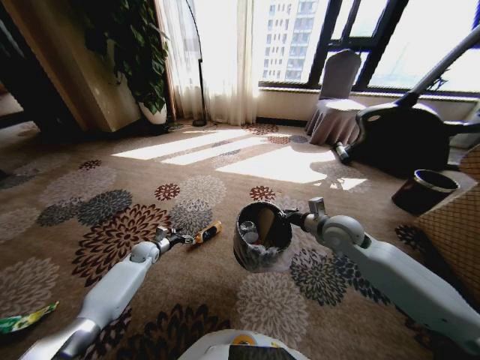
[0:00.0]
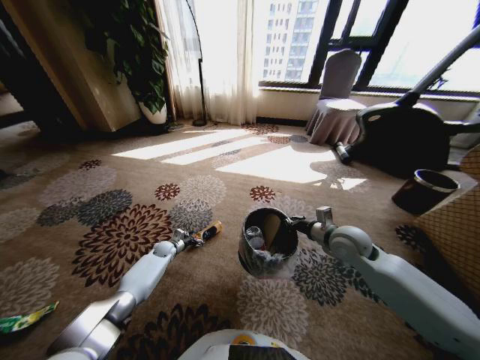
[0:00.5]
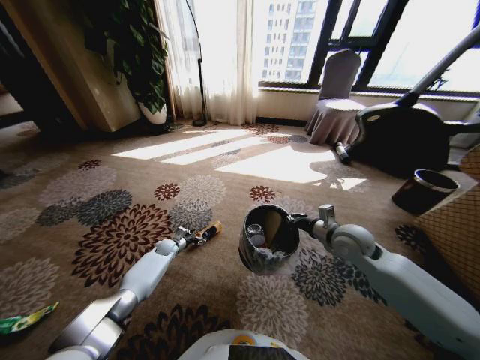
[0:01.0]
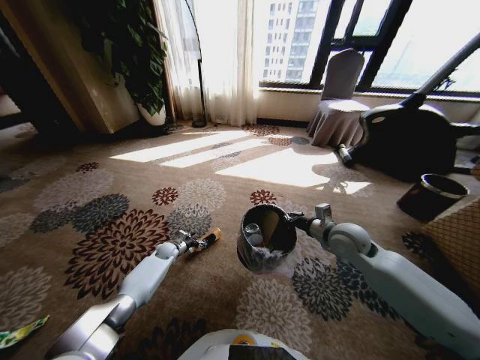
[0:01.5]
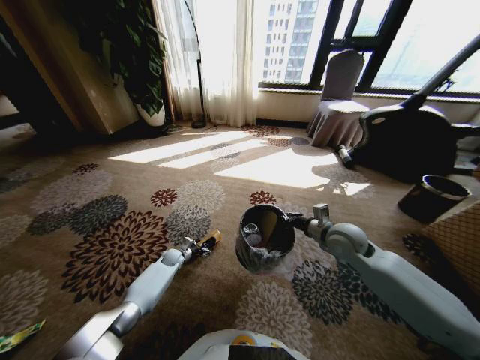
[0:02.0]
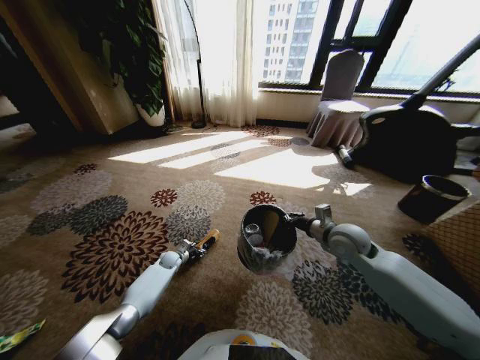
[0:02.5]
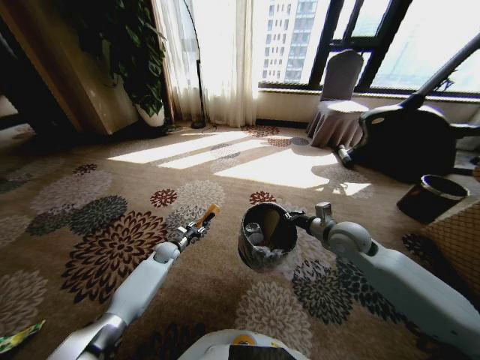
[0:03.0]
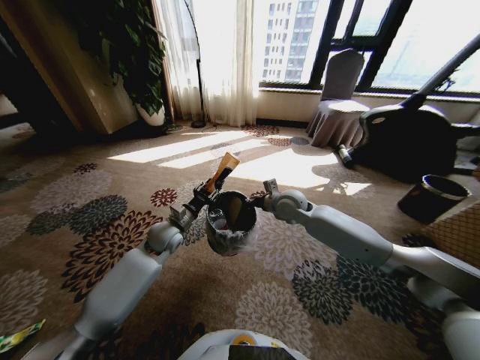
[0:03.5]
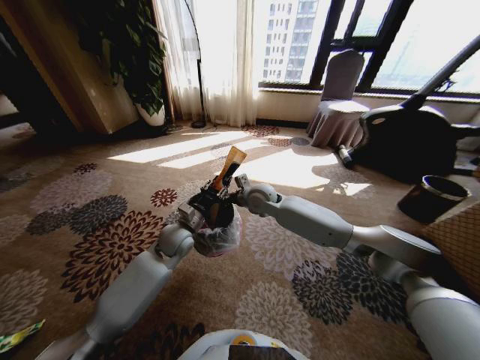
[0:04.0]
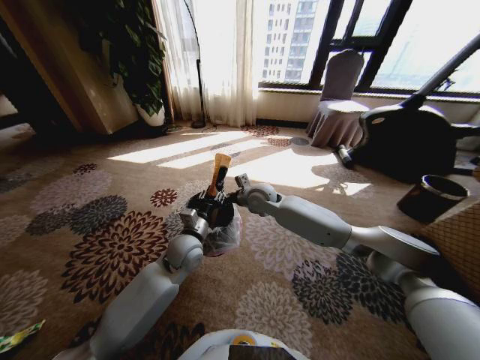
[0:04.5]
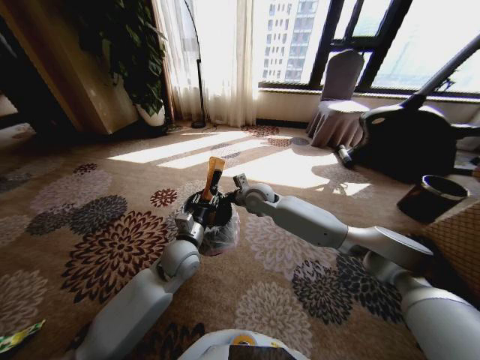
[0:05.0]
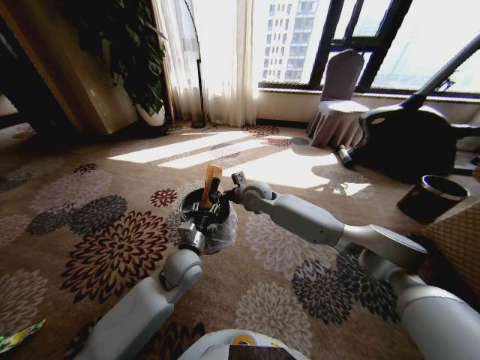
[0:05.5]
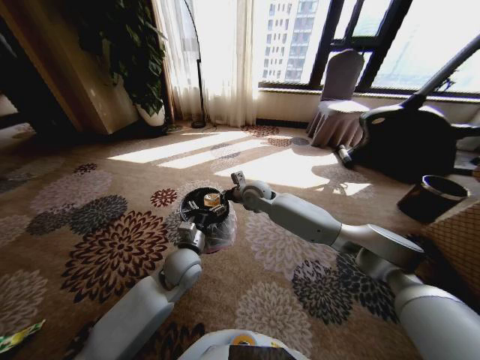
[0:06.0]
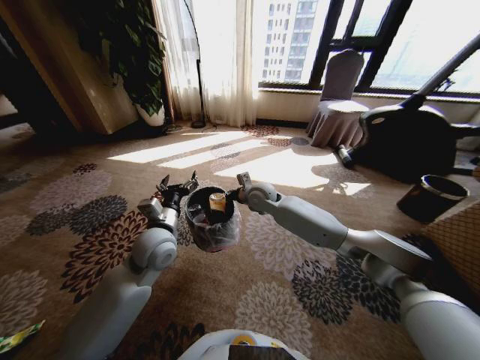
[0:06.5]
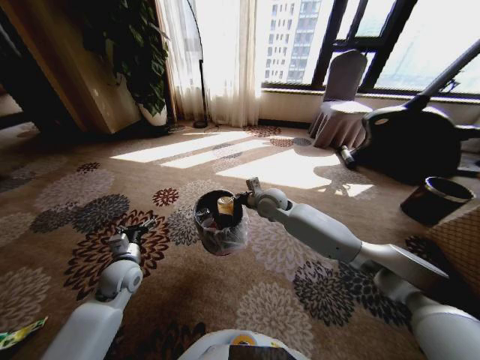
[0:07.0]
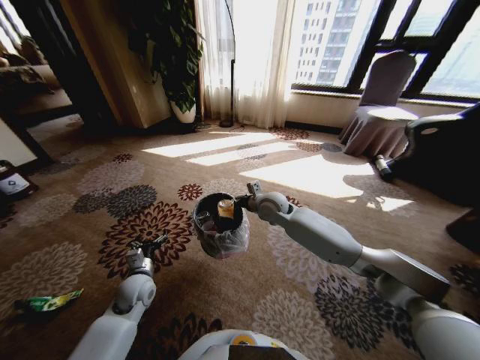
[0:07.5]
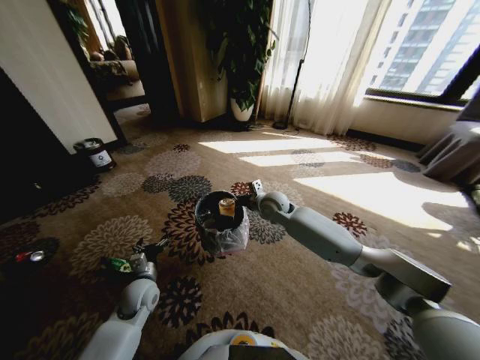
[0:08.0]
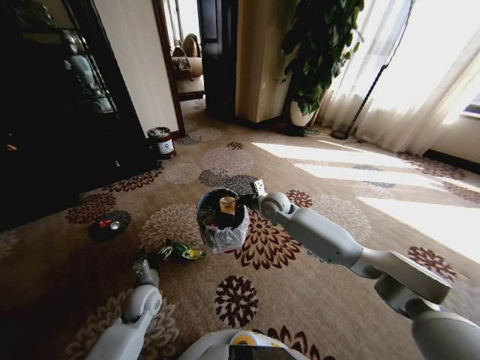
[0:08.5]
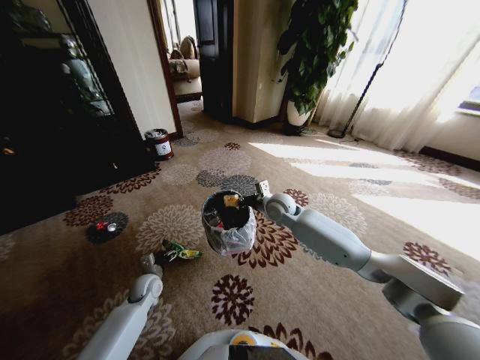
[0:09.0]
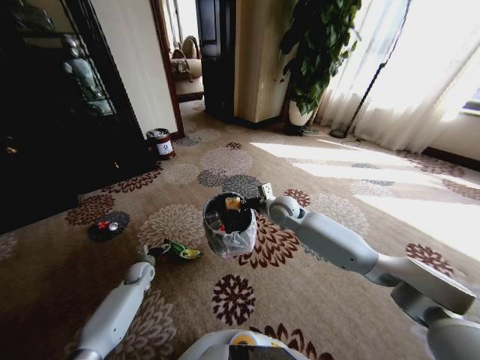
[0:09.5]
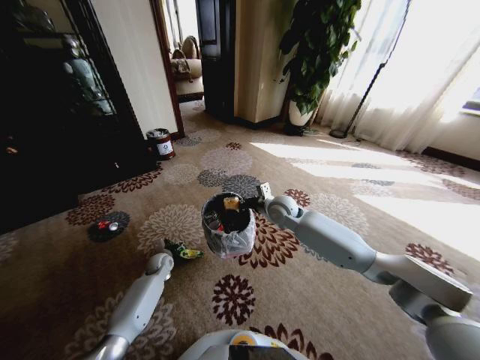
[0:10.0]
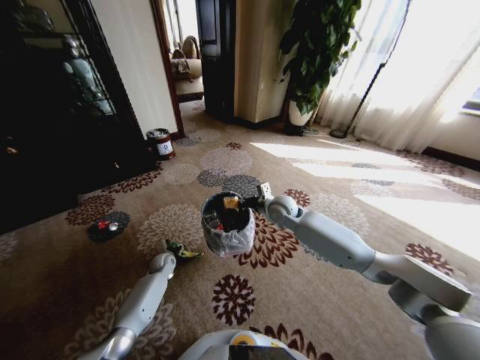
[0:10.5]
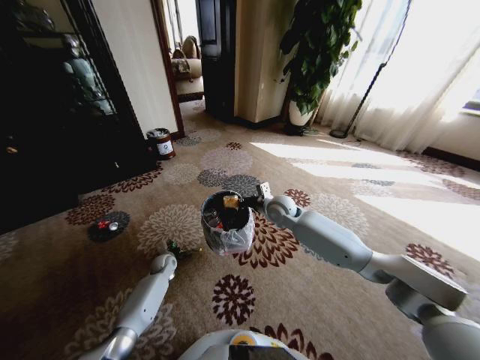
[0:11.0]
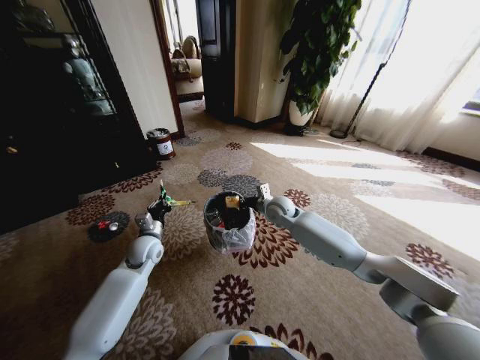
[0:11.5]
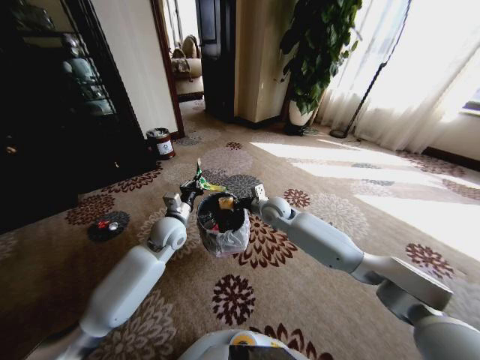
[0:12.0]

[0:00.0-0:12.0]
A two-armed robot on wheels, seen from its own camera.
Task of the whole recording: Pick up the trash from the ground and place it into the trash bin.
0:00.0 to 0:02.0: The left gripper travels downward and to the right by roughly 10 cm.
0:02.0 to 0:04.0: The right gripper shifts about 25 cm to the left and forward. Meanwhile the left gripper heads upward, covering approximately 25 cm, and closes.
0:04.0 to 0:06.0: The left gripper travels backward by some 5 cm, and opens its fingers.
0:06.0 to 0:08.0: The right gripper shifts about 5 cm to the right. Meanwhile the left gripper shifts roughly 15 cm to the left and downward.
0:08.0 to 0:10.0: The left gripper travels forward and downward by about 20 cm.
0:10.0 to 0:12.0: The left gripper moves upward and to the right, roughly 25 cm, and closes.

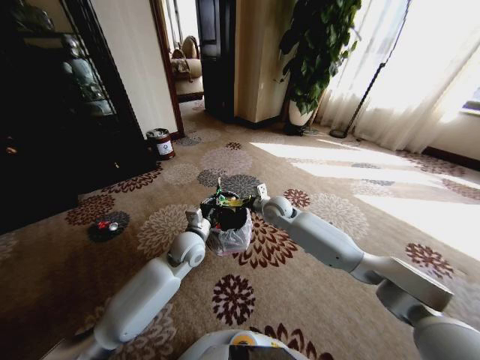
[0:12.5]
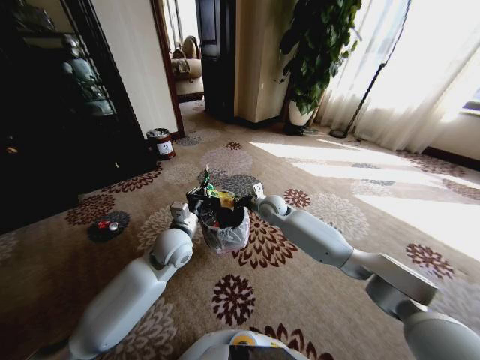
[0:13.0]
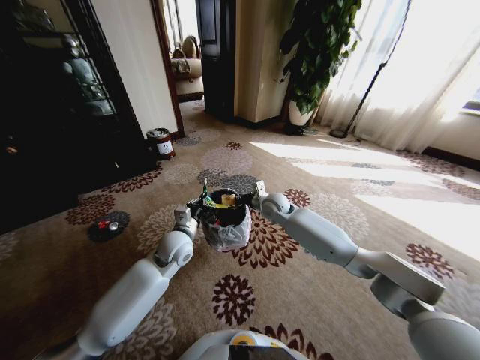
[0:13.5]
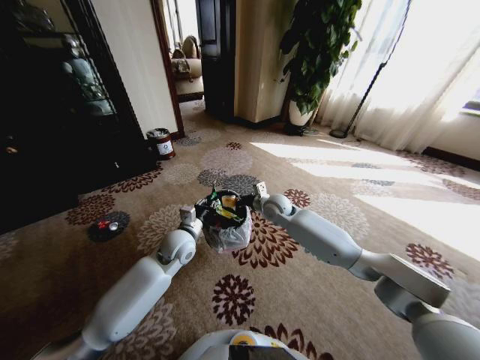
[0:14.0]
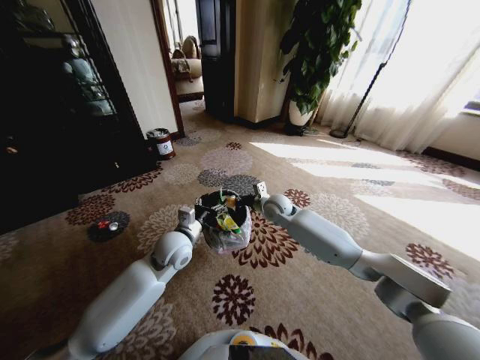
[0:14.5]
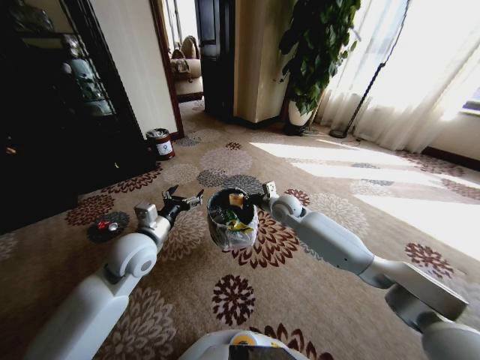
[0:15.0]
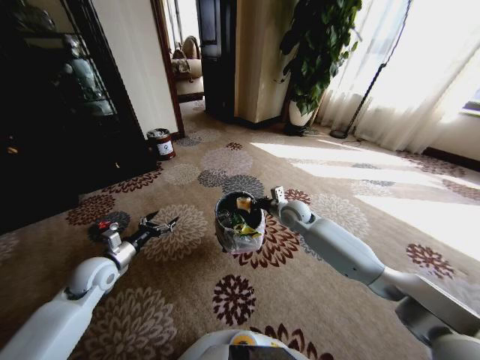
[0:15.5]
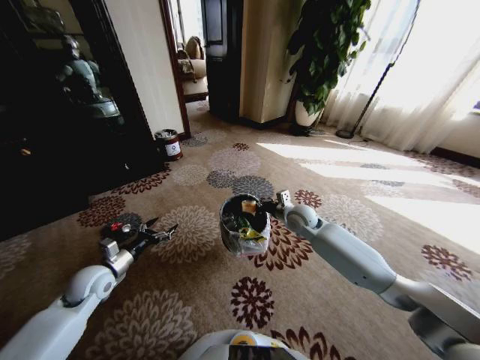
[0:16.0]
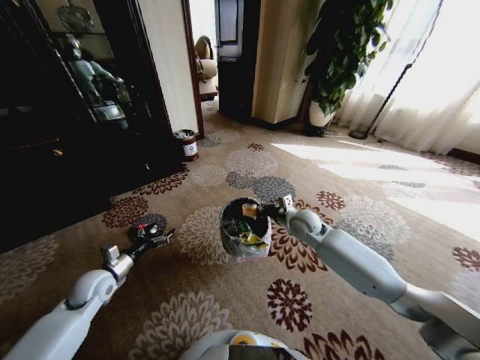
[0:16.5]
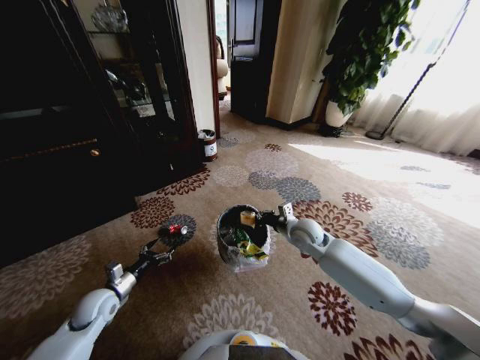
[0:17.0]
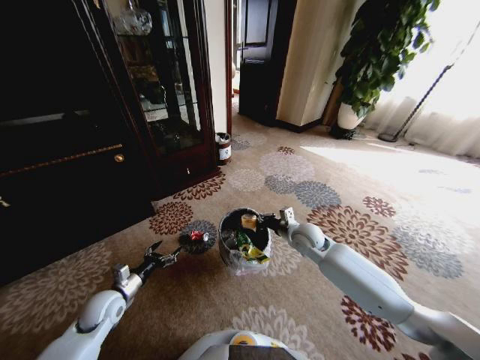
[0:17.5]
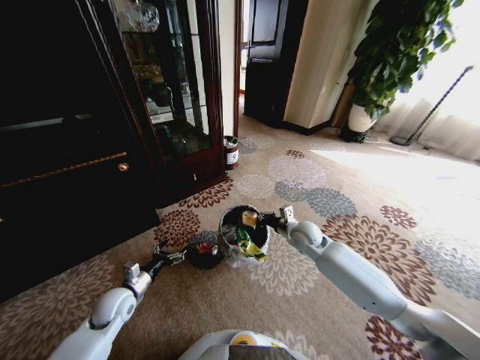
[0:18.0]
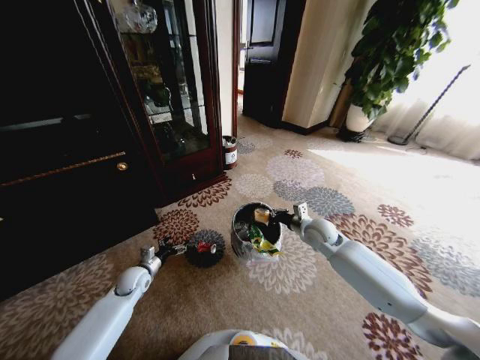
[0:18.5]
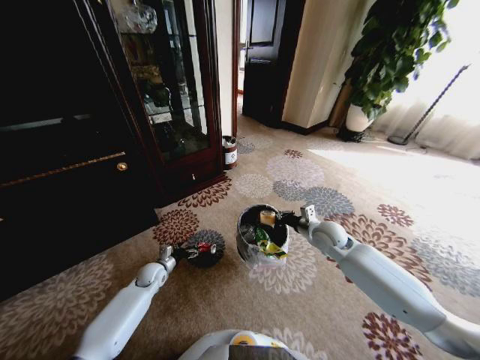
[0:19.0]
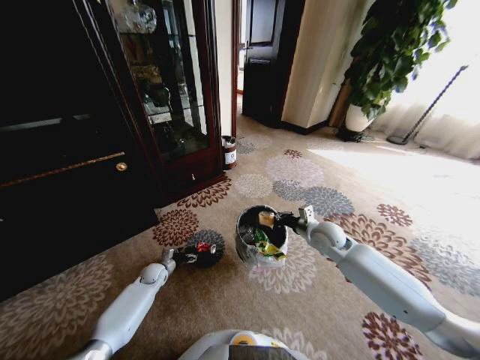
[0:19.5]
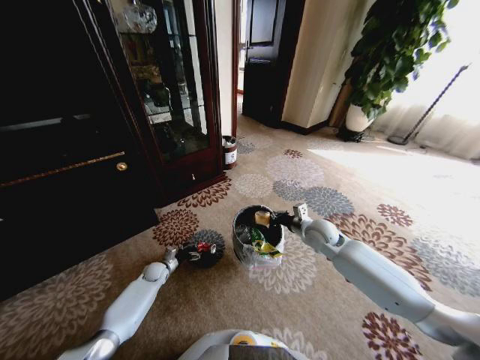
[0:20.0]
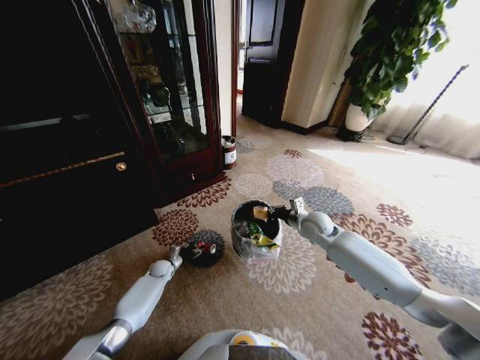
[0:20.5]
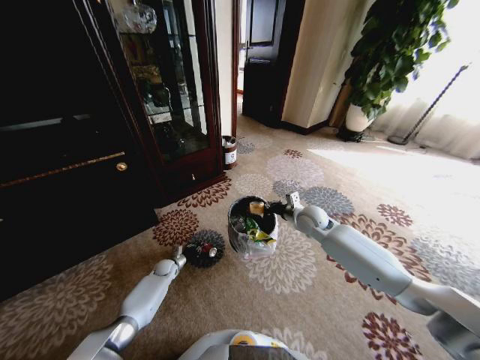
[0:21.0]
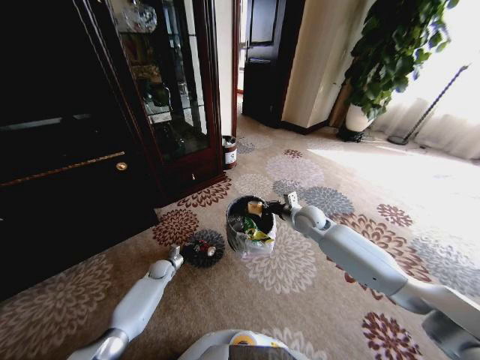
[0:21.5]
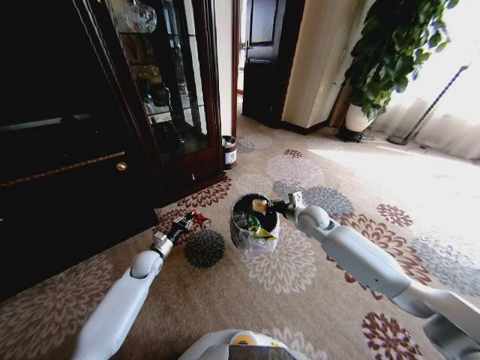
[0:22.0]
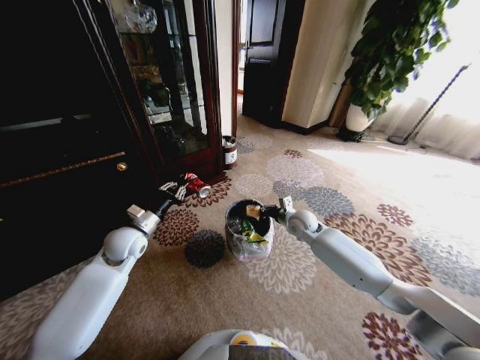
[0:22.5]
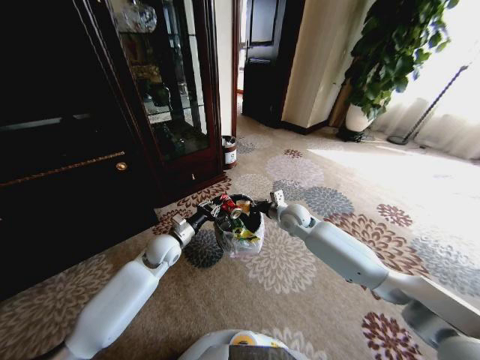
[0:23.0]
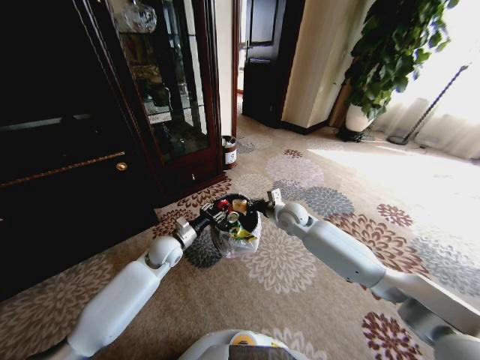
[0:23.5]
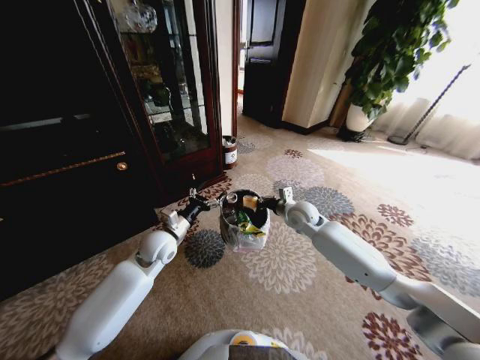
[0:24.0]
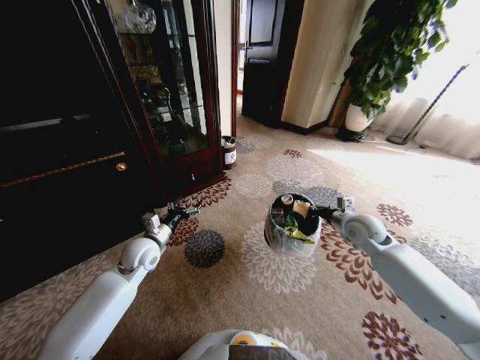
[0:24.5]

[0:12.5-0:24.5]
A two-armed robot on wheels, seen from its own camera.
Task of the whole recording: Pick up the trash from the ground and place it into the trash bin.
0:12.5 to 0:14.5: The left gripper opens.
0:14.5 to 0:16.5: The left gripper heads to the left, covering some 25 cm. The right gripper travels to the right and backward by roughly 10 cm.
0:16.5 to 0:18.5: The left gripper is displaced downward by about 10 cm, while the right gripper heads to the right, covering approximately 5 cm.
0:18.5 to 0:20.5: The left gripper goes approximately 15 cm downward and forward.
0:20.5 to 0:22.5: The left gripper goes some 30 cm upward, and closes up.
0:22.5 to 0:24.5: The left gripper opens. Meanwhile the right gripper shifts some 15 cm to the right.

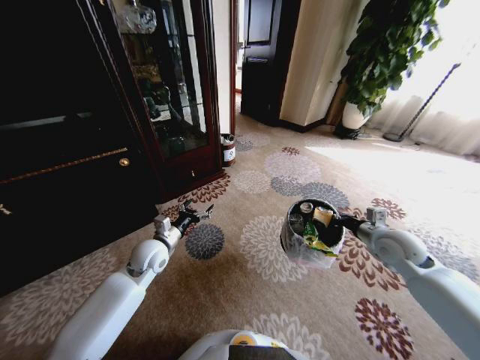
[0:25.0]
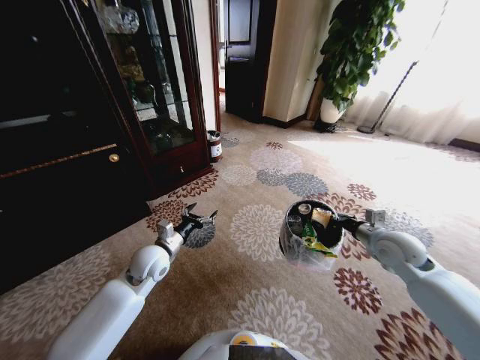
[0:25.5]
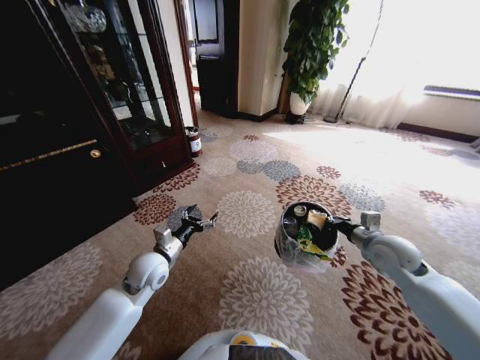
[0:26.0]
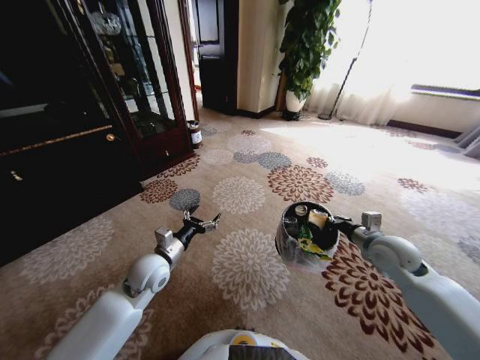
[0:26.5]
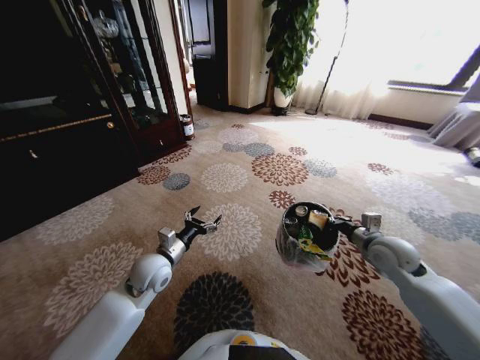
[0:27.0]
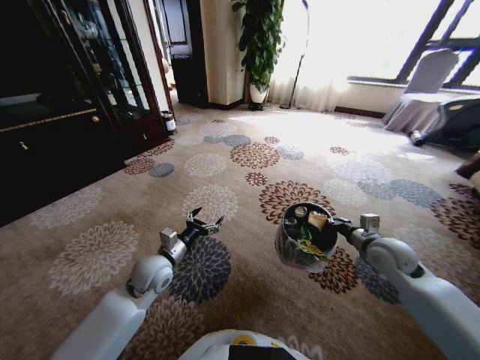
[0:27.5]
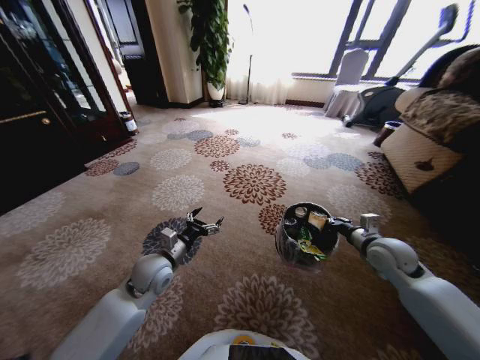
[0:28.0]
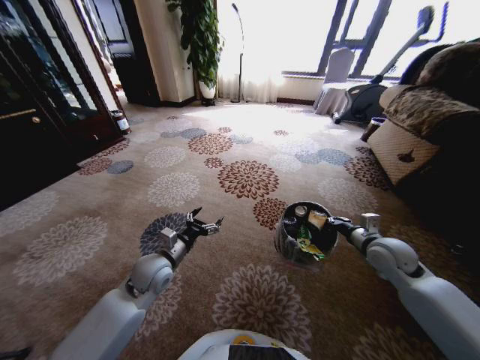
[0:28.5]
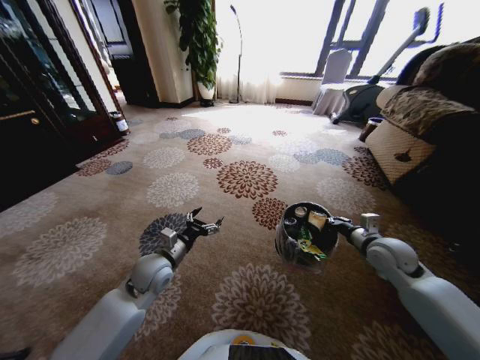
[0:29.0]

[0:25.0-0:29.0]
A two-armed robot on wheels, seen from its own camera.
Task of the whole recording: Pick up the trash from the ground and place it into the trash bin.
0:25.0 to 0:27.0: The left gripper moves approximately 5 cm.
